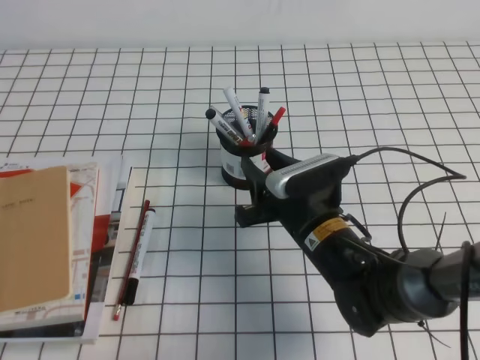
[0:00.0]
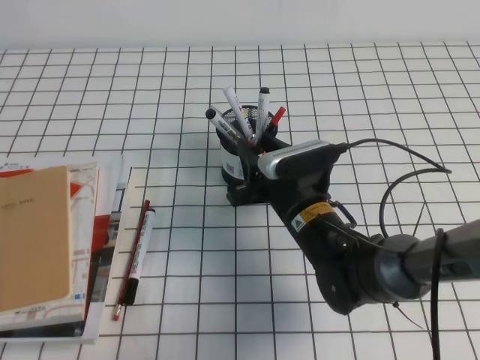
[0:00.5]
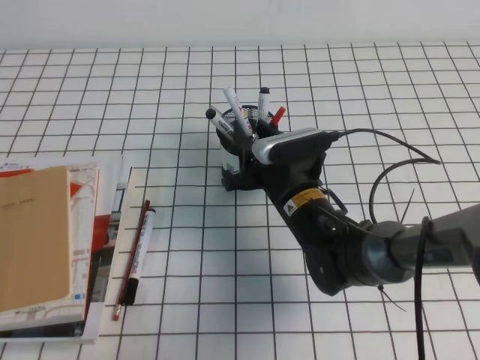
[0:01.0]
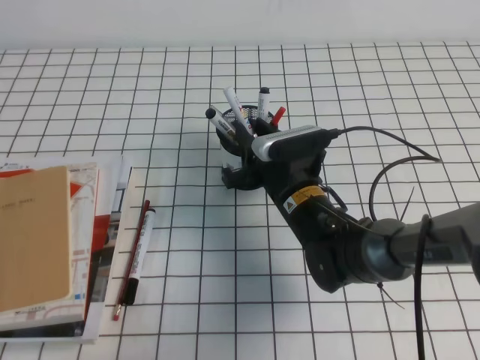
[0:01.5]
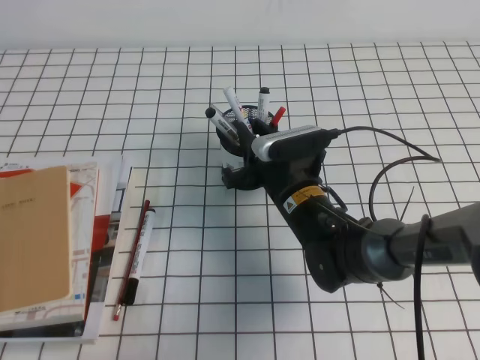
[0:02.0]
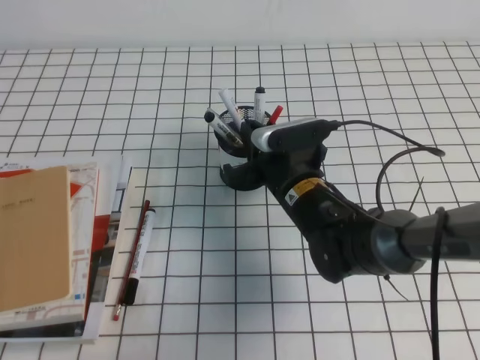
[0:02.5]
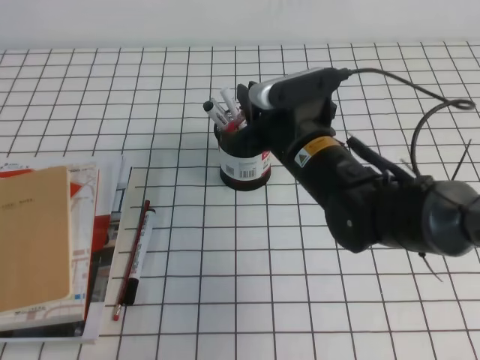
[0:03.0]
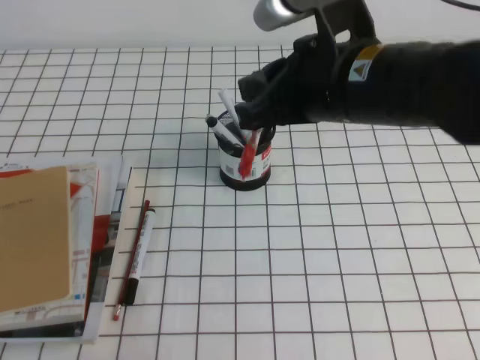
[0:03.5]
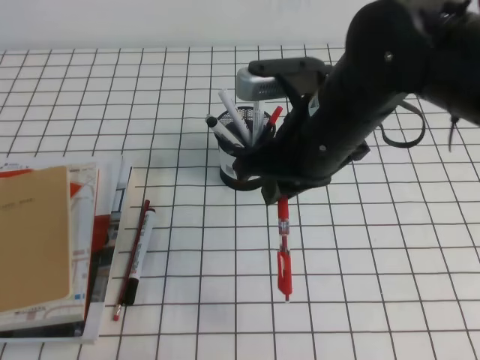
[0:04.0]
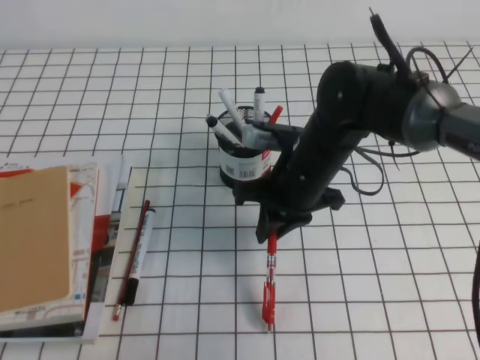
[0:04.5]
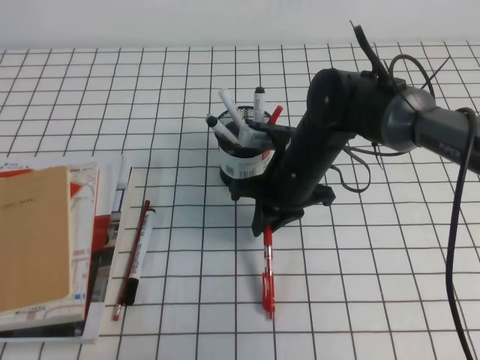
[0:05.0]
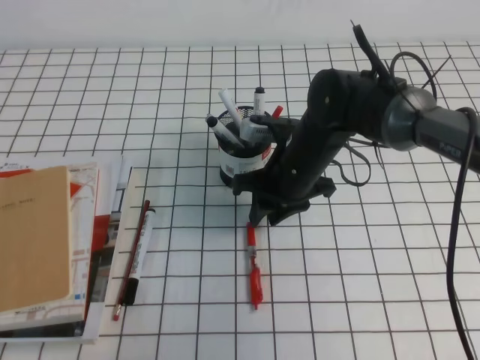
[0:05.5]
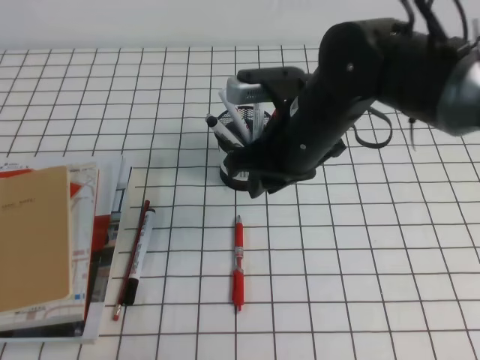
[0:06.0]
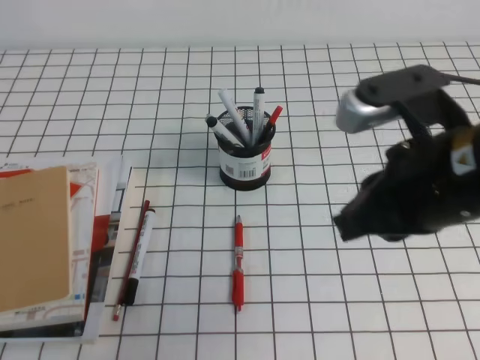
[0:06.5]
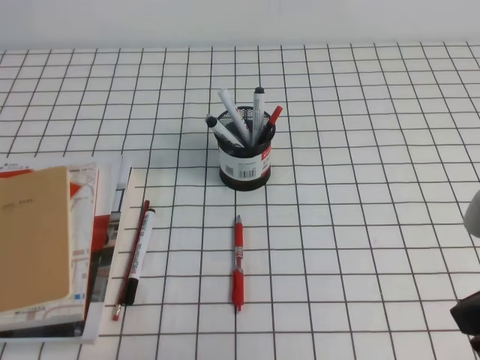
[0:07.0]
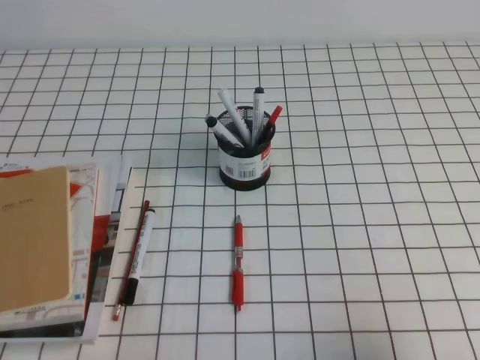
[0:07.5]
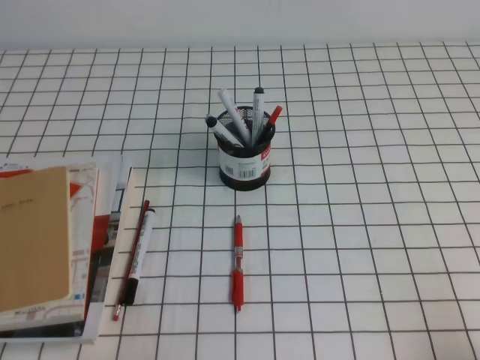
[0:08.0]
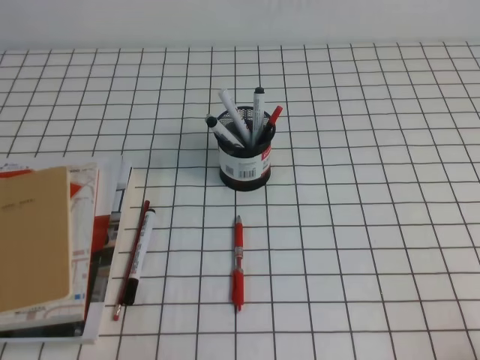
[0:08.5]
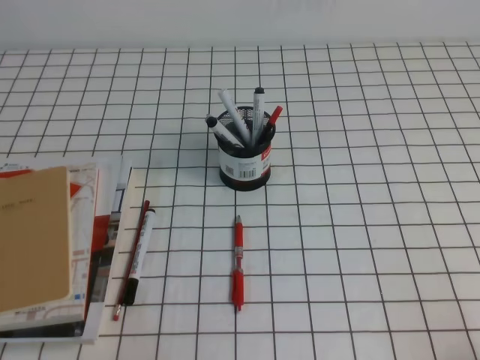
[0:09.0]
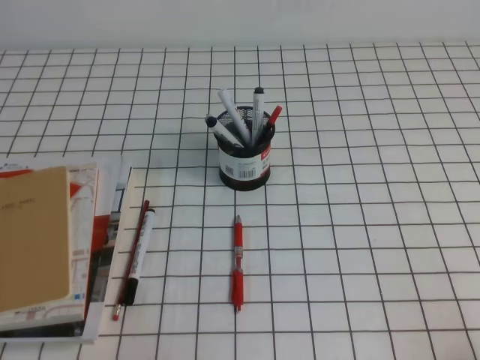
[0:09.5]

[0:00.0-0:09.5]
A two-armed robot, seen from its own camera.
Step, 0:00.0 to 0:09.5: Pick up the pen from the pen holder.
0:00.0 to 0:02.0: The right gripper shifts roughly 5 cm forward, and closes its fingers.
0:02.0 to 0:04.0: The right gripper is displaced upward by some 15 cm.
0:04.0 to 0:05.5: The right gripper goes approximately 15 cm downward and forward, and opens up.
0:05.5 to 0:07.5: The right gripper moves backward and to the right, approximately 35 cm, and closes.
0:07.5 to 0:09.5: The right gripper is displaced downward, backward and to the right by about 15 cm.
